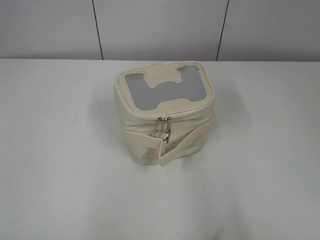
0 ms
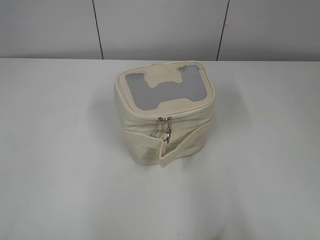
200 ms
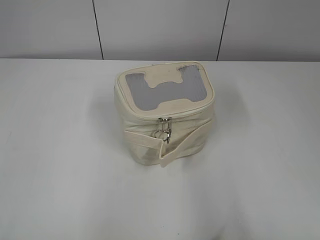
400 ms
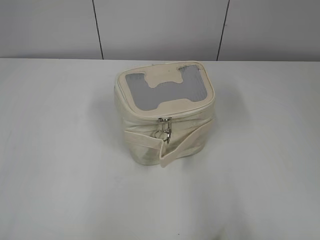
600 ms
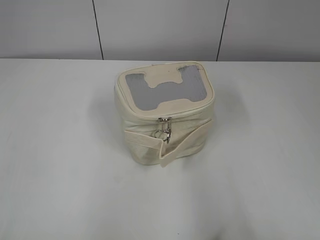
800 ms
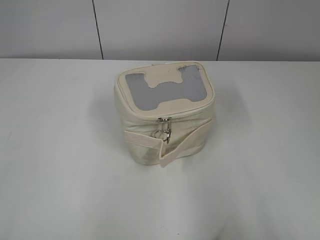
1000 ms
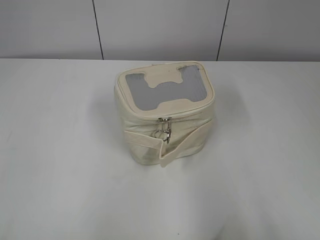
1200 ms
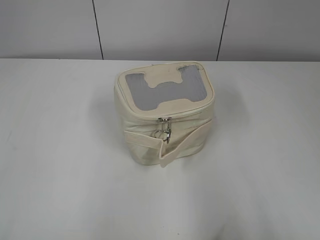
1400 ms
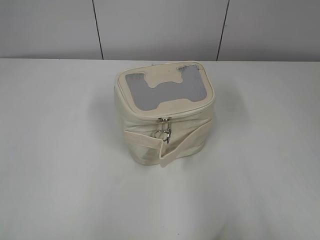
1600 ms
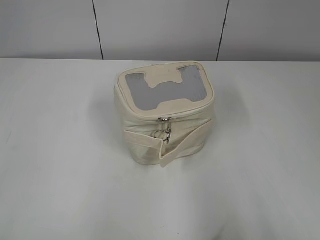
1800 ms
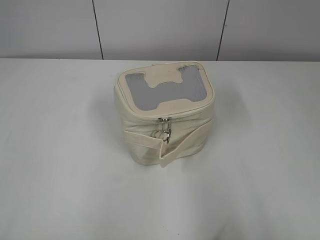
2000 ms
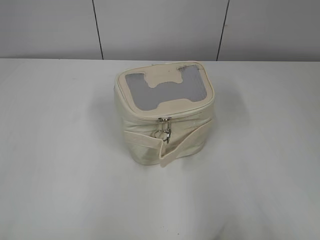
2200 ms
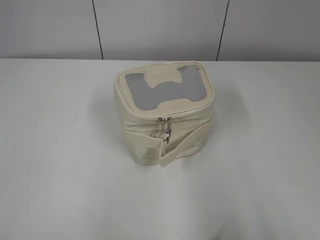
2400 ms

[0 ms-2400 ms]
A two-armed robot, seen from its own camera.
1200 ms to 2400 ms: The two grippers keep their place.
